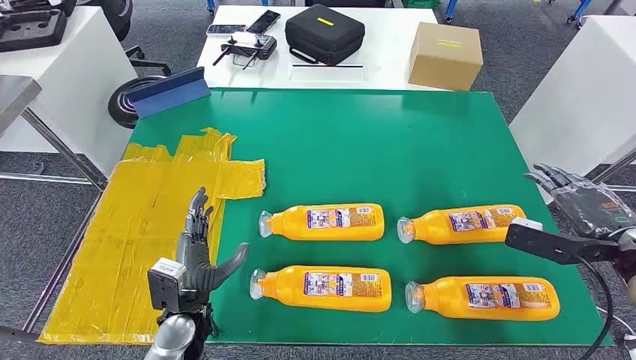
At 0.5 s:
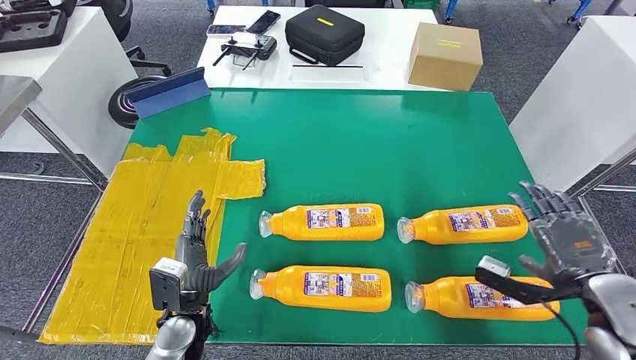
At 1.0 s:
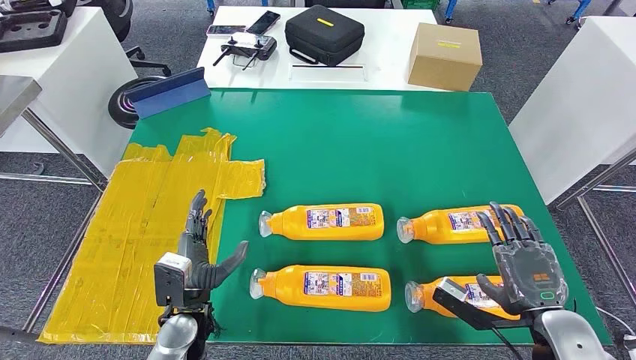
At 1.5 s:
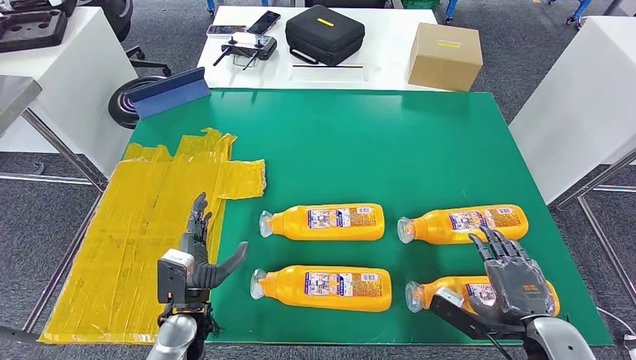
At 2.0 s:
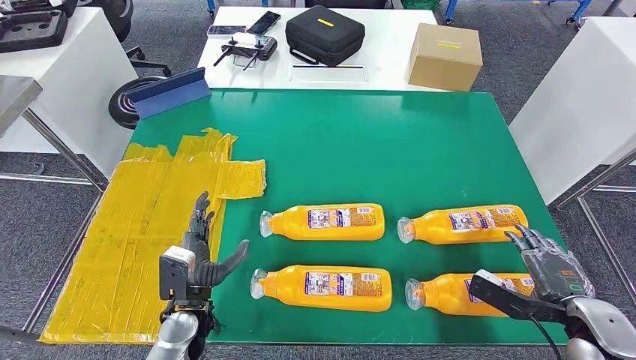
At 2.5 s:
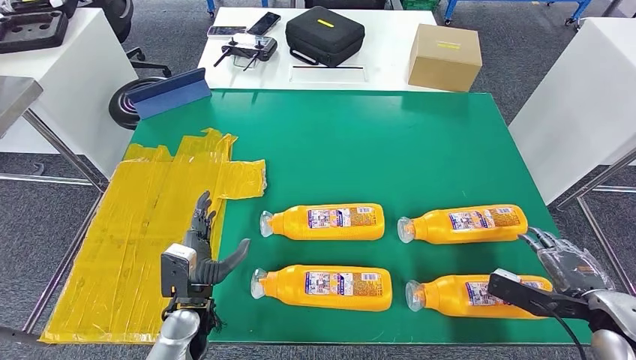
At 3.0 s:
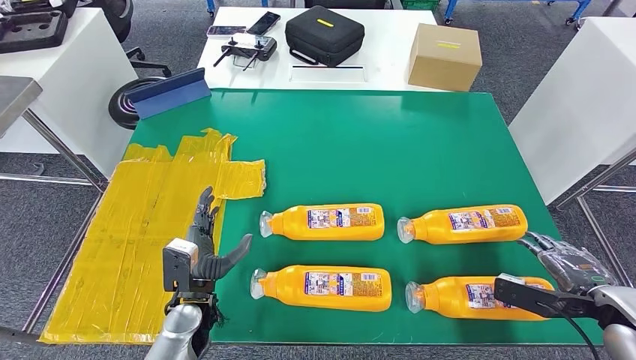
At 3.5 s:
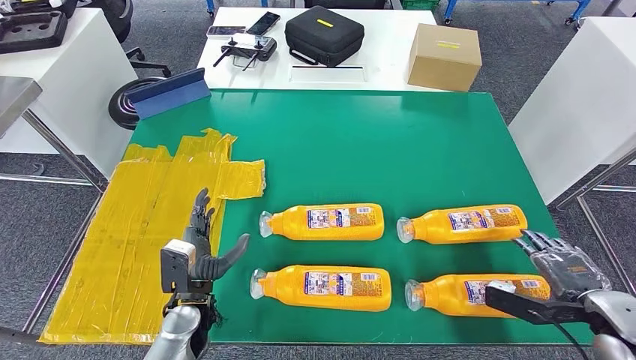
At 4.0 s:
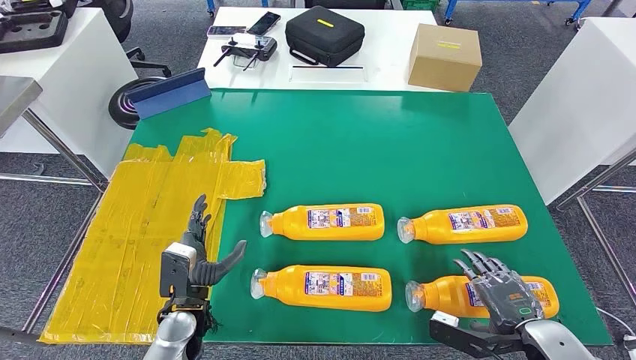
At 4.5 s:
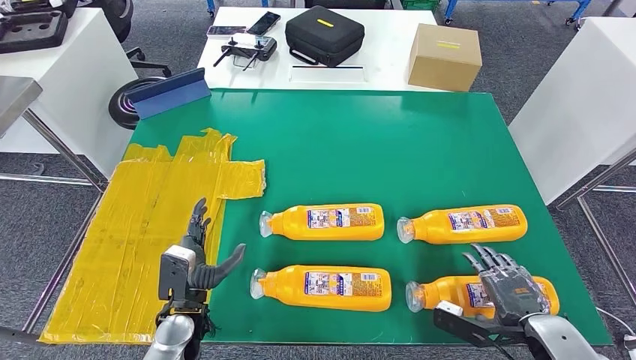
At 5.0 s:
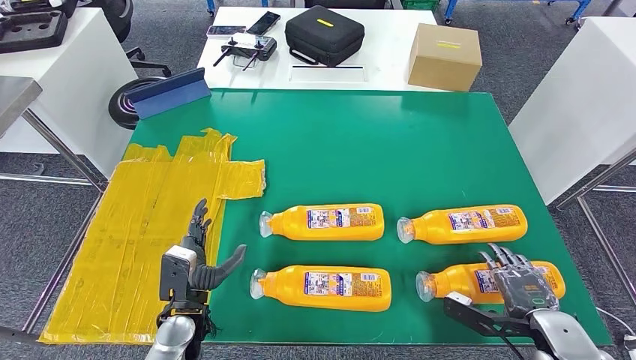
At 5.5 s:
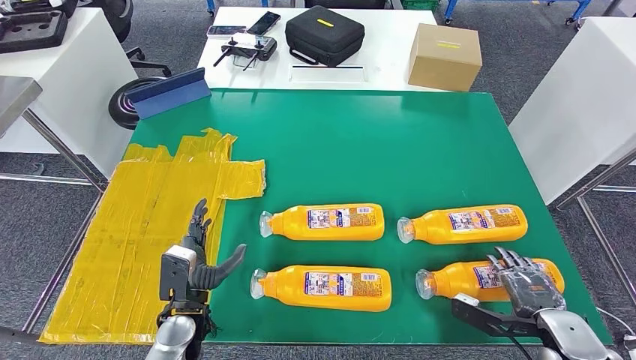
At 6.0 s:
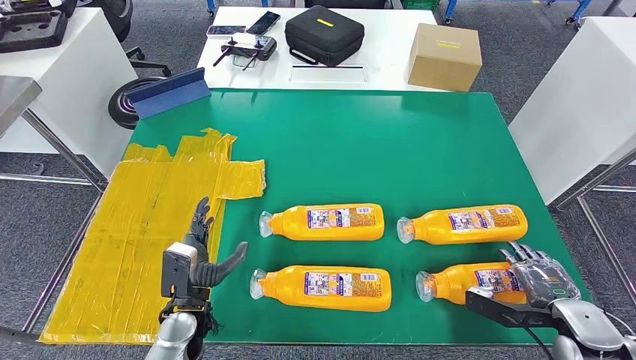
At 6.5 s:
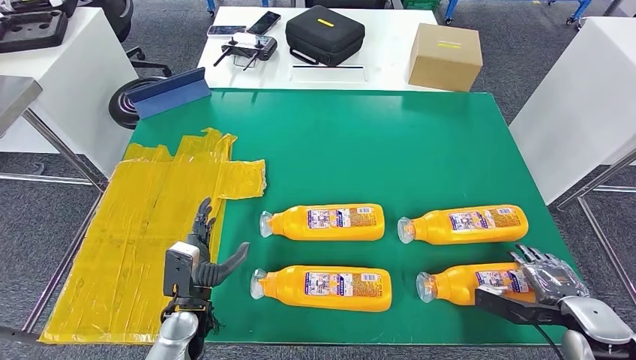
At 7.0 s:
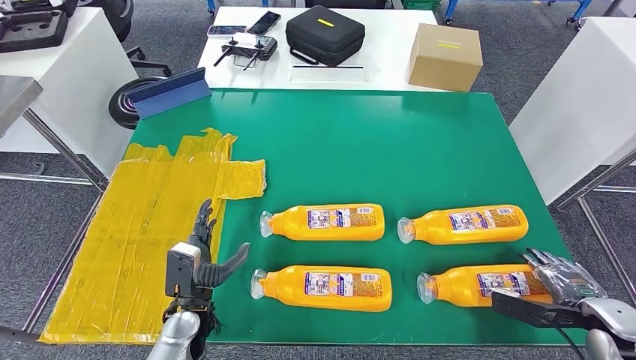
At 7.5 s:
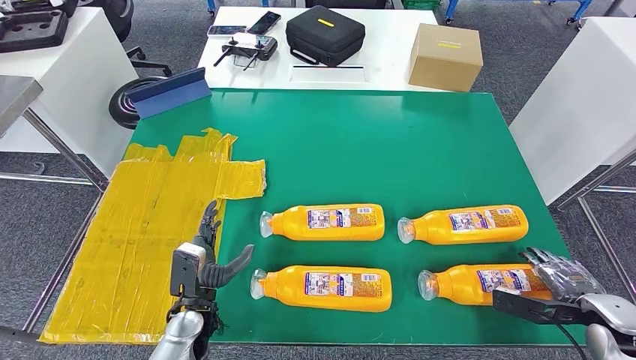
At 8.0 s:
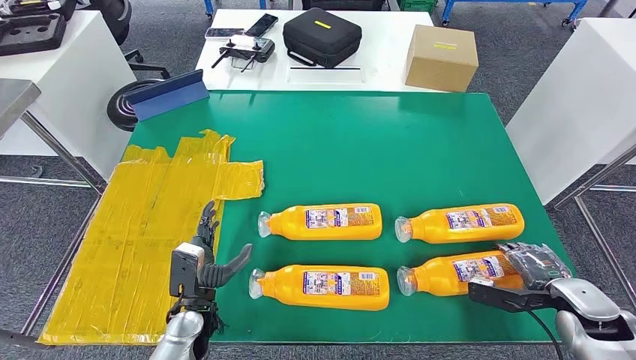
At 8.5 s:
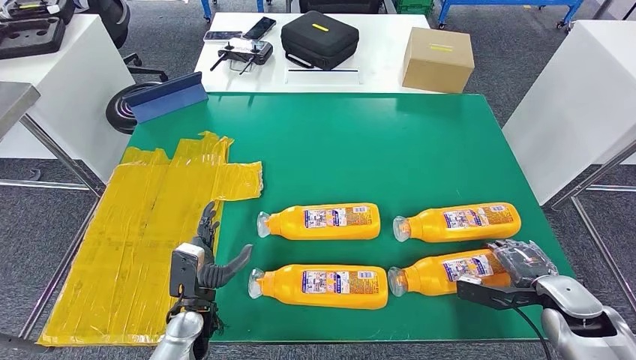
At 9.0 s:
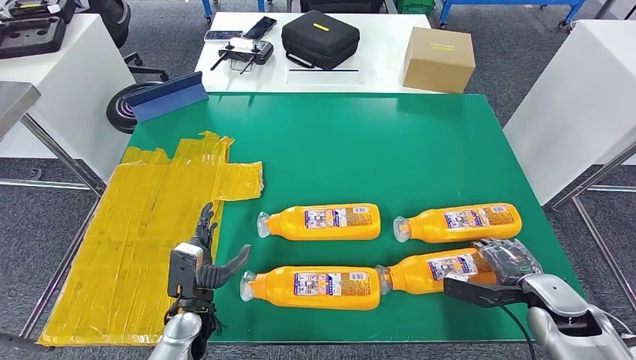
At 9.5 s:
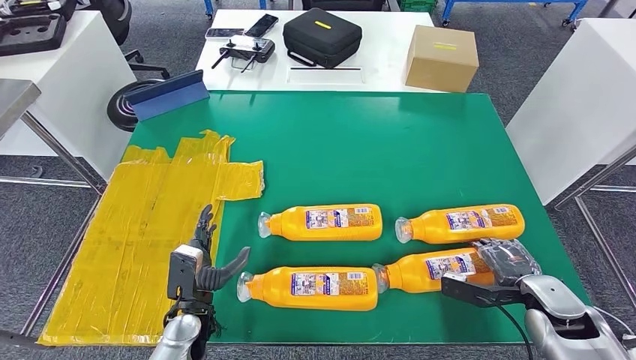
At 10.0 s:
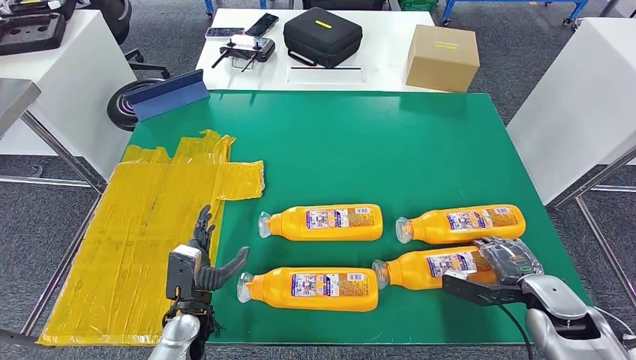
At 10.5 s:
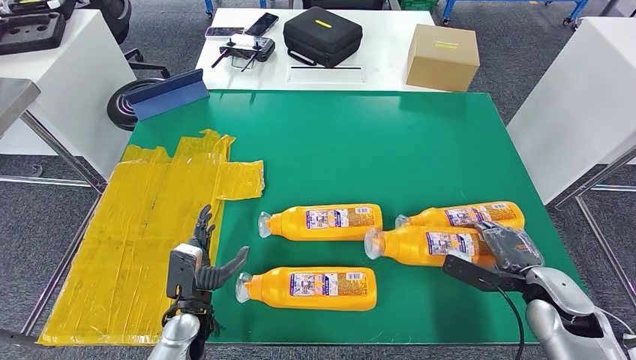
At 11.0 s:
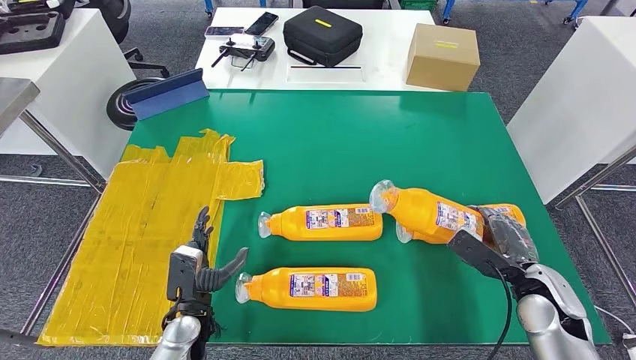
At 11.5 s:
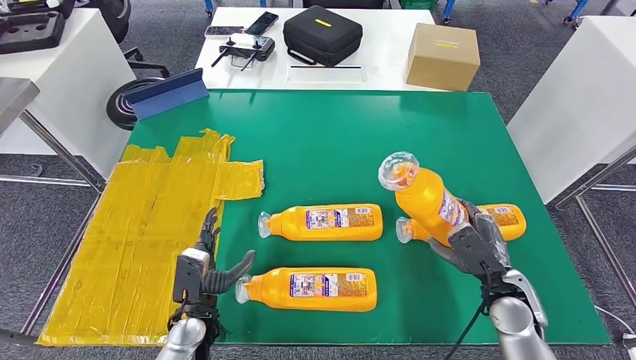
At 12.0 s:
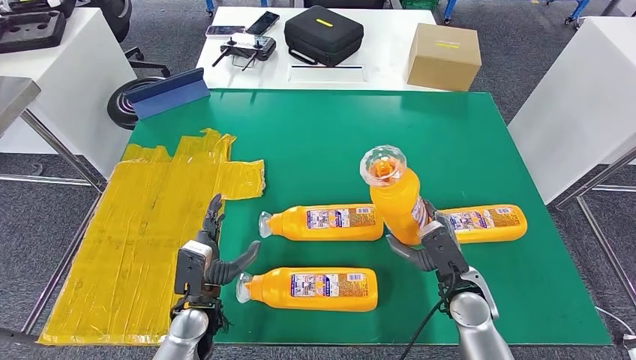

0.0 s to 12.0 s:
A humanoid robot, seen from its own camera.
Step, 0.0 to 11.0 s: Take the fast-moving consumer goods bottle from the table.
2.0 to 4.0 s: The right hand is displaced to the left by approximately 5 cm.
4.0 to 6.0 s: The right hand travels to the right by some 5 cm.
6.0 to 8.0 s: The right hand ends up roughly 5 cm from where it was.
8.0 to 10.0 s: The hands stay close to where they were, moving slightly.
10.0 to 12.0 s: The right hand moves to the left, roughly 15 cm.

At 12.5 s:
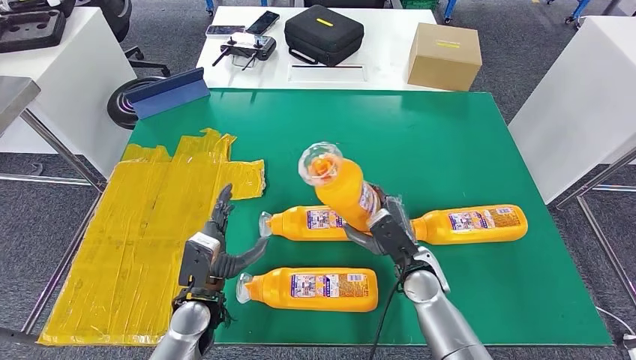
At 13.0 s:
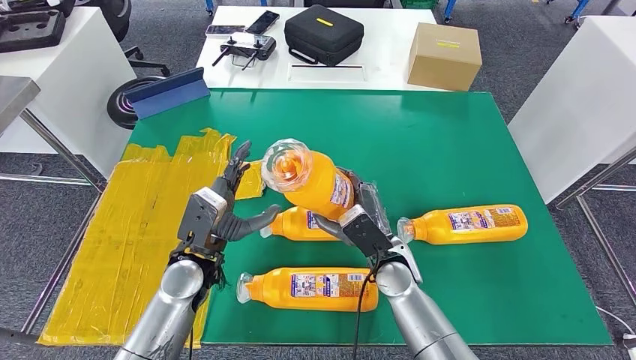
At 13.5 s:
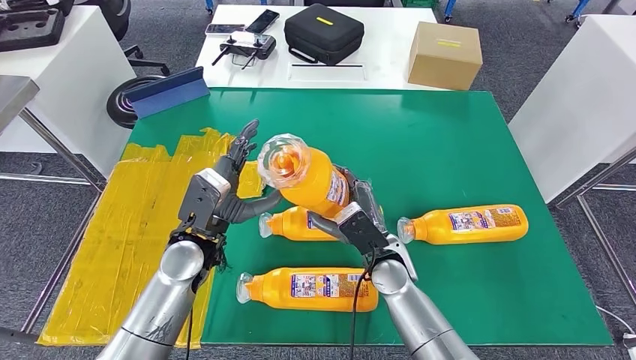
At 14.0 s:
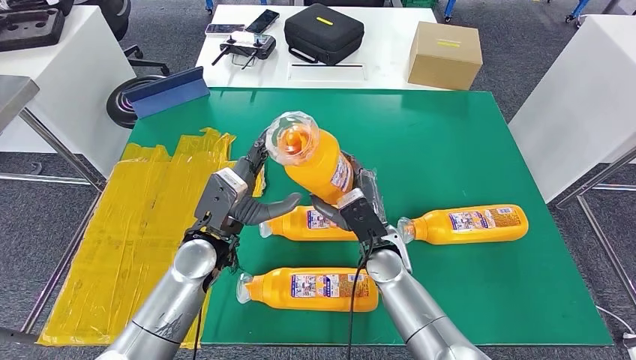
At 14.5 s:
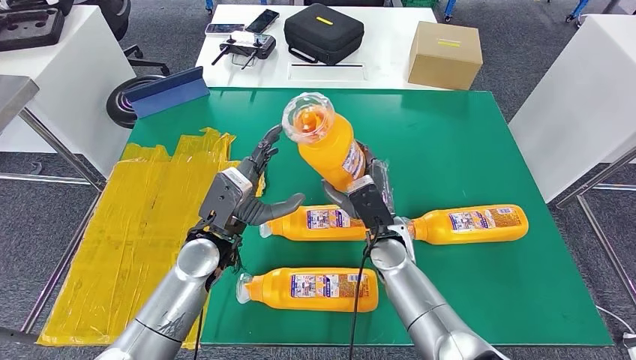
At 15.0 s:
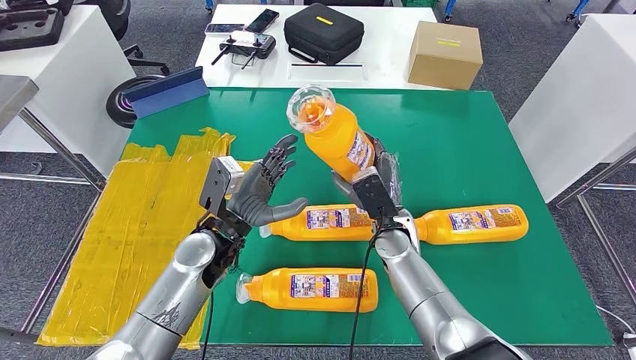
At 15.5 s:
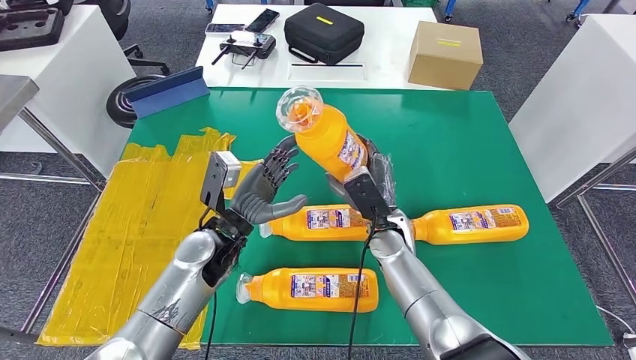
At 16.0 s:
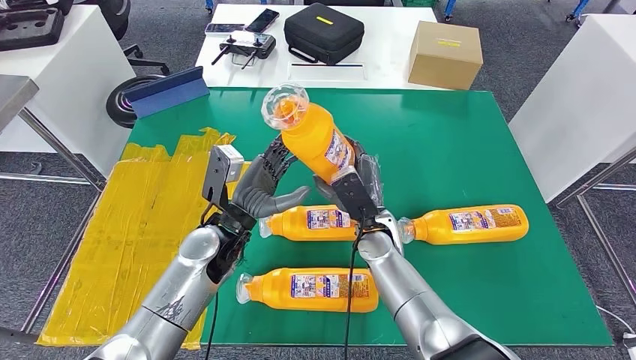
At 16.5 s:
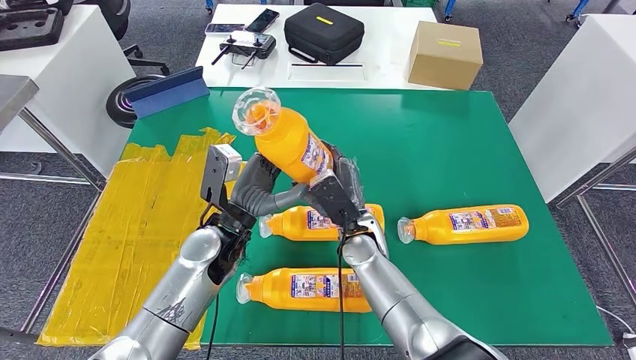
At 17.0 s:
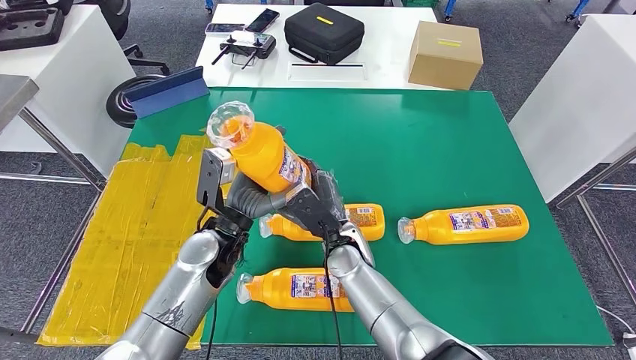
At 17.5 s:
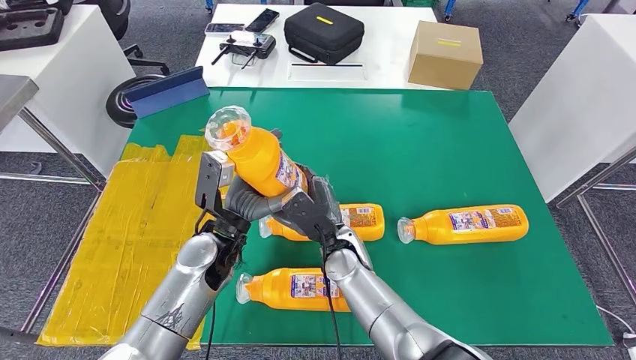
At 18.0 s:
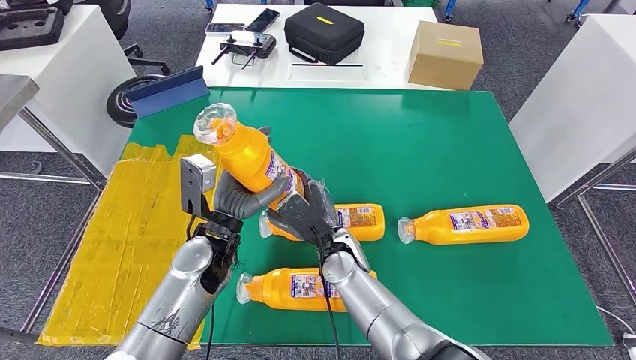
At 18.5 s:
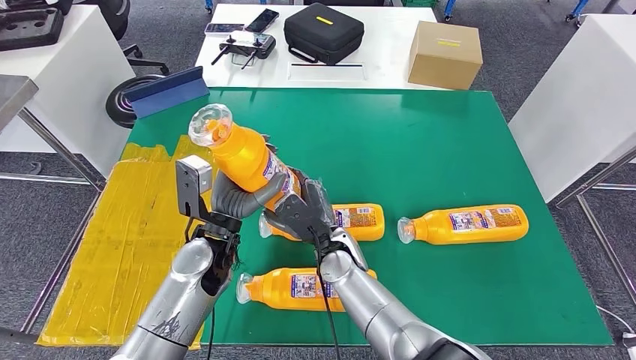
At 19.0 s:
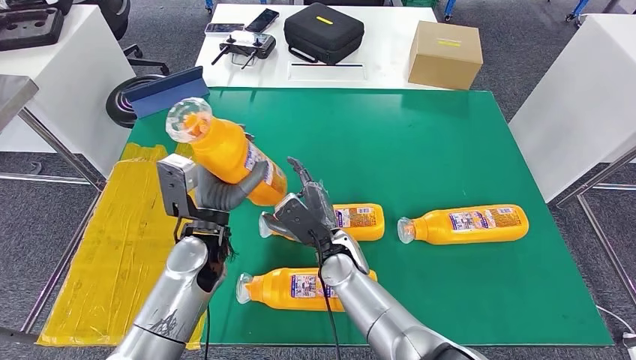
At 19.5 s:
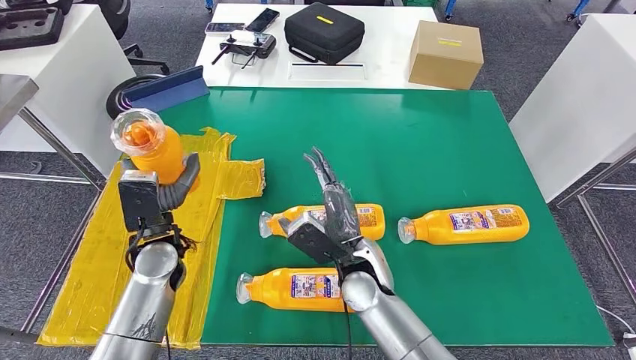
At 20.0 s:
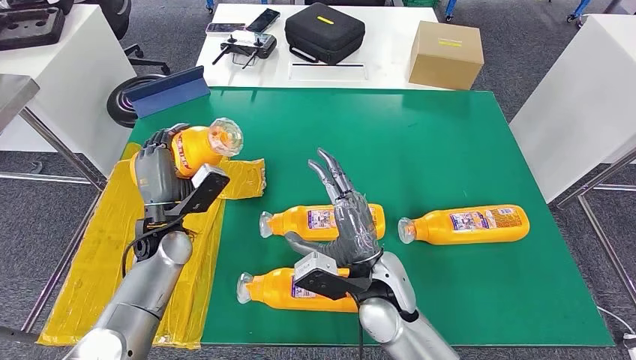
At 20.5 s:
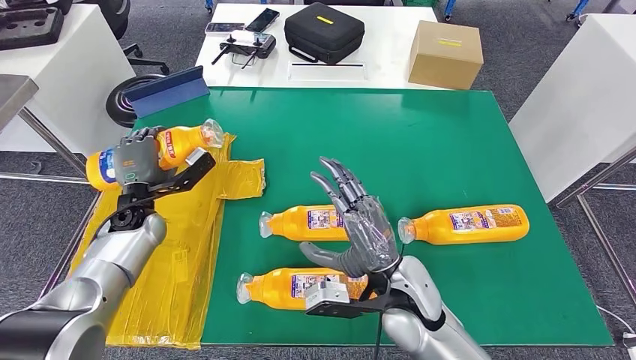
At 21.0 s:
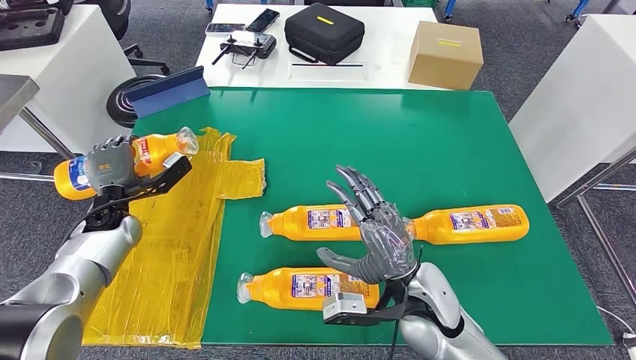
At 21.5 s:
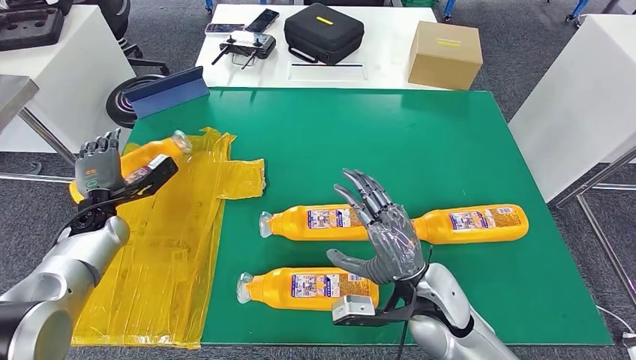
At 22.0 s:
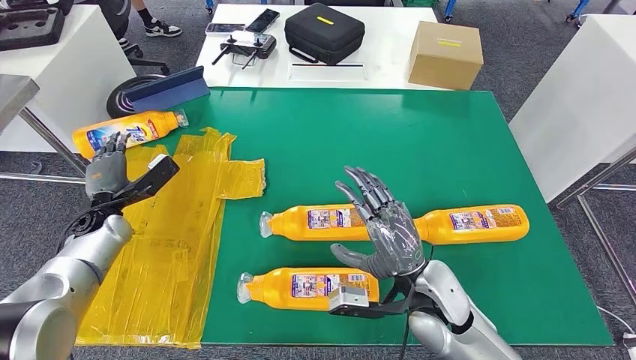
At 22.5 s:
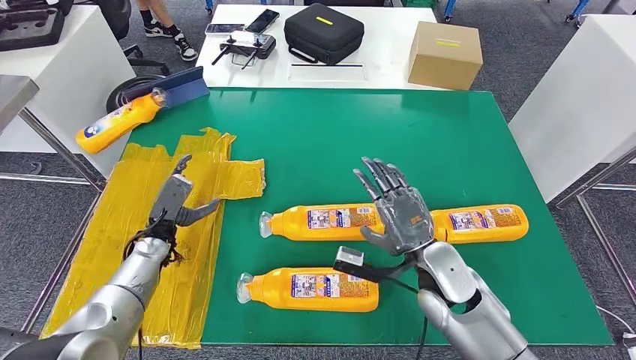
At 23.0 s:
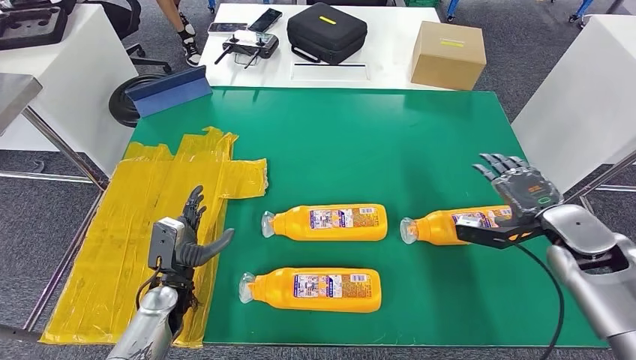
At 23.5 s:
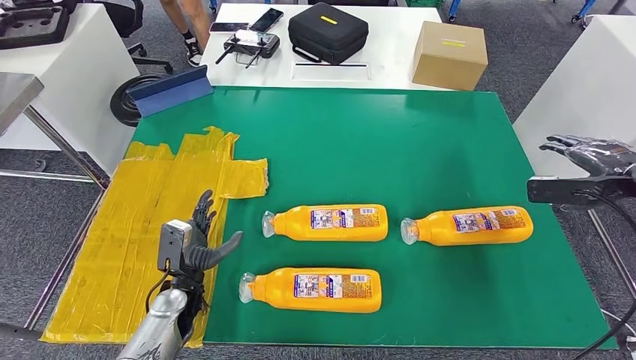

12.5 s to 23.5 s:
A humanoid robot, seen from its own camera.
Step, 12.5 to 22.0 s: Flip the fast-moving consumer goods bottle to the front side.
12.5 to 14.5 s: The left hand moves upward and forward, approximately 10 cm. The right hand heads to the left, covering some 5 cm.
16.0 to 18.0 s: The right hand travels to the left by roughly 5 cm.
18.0 to 20.0 s: The right hand moves backward, to the right and upward, approximately 10 cm, while the left hand moves to the left, approximately 10 cm.